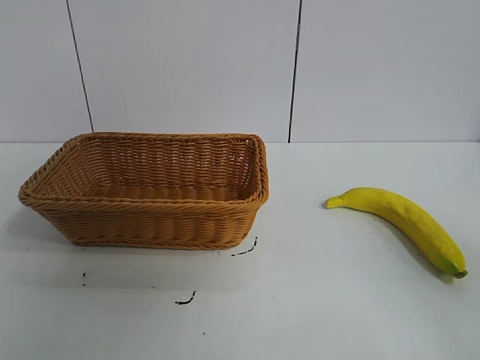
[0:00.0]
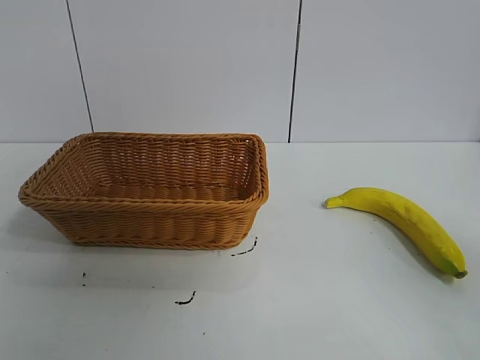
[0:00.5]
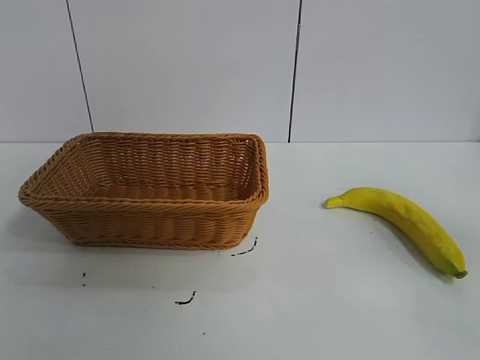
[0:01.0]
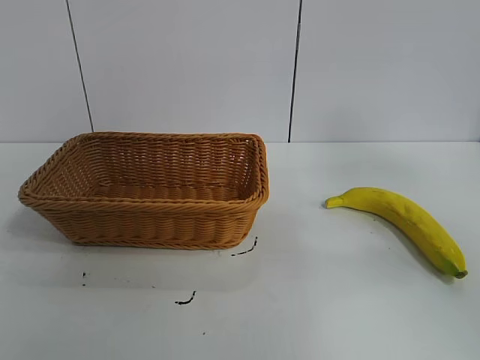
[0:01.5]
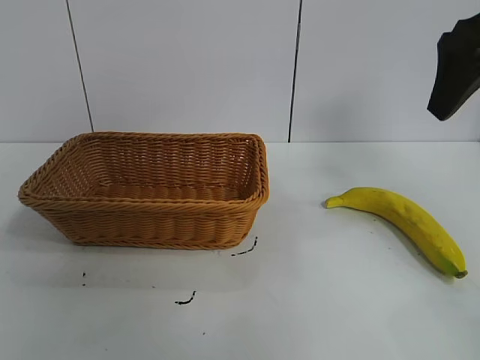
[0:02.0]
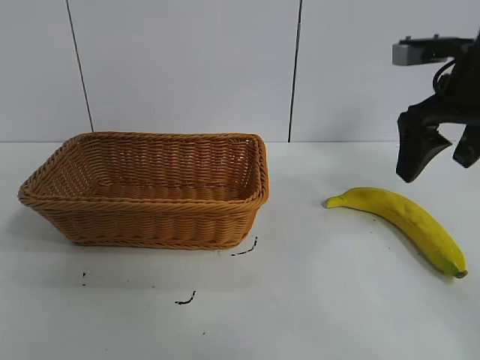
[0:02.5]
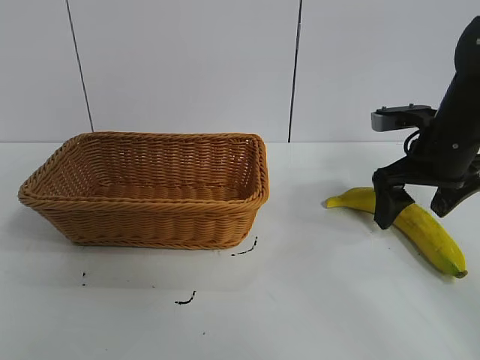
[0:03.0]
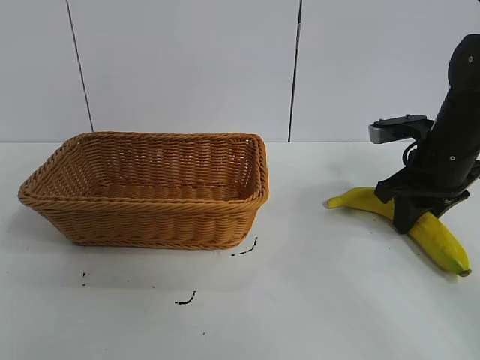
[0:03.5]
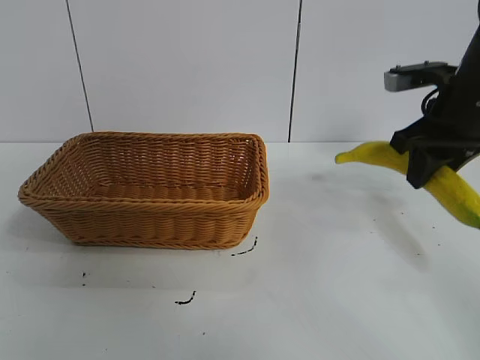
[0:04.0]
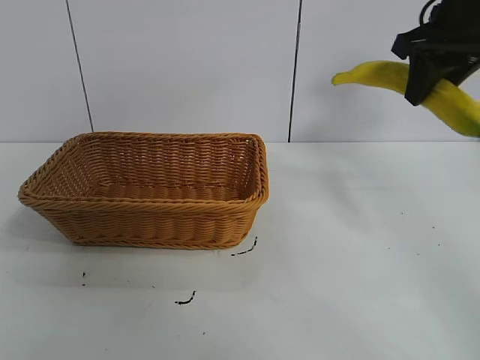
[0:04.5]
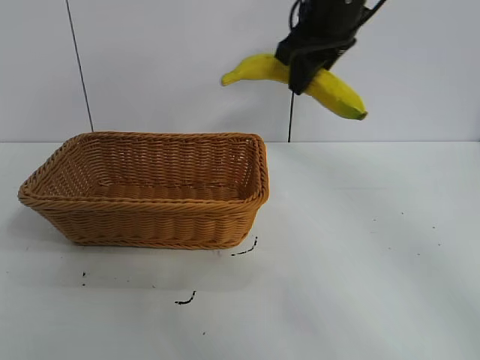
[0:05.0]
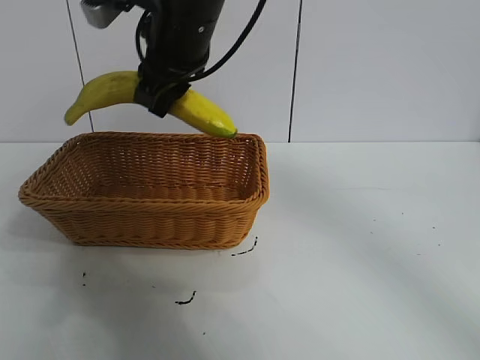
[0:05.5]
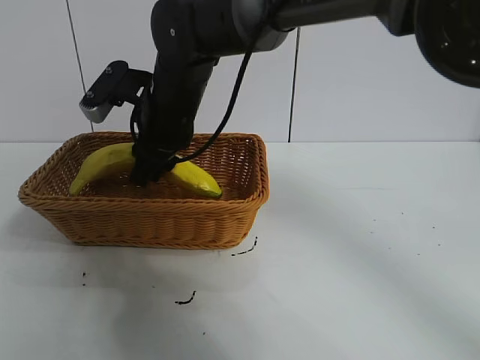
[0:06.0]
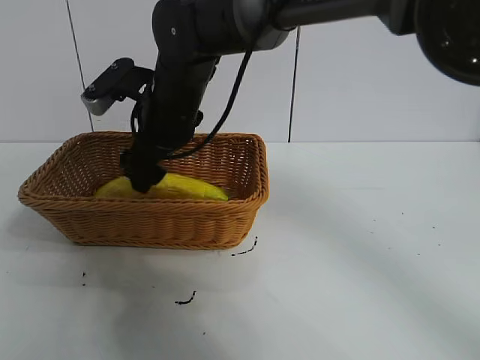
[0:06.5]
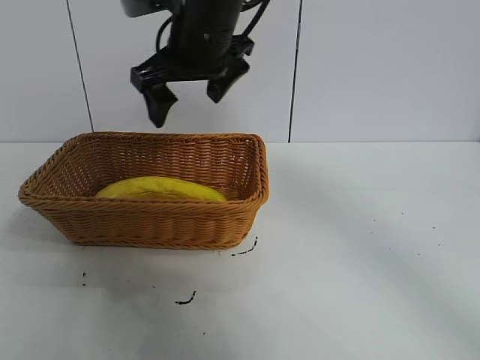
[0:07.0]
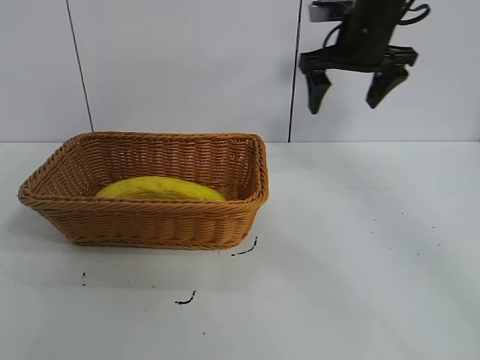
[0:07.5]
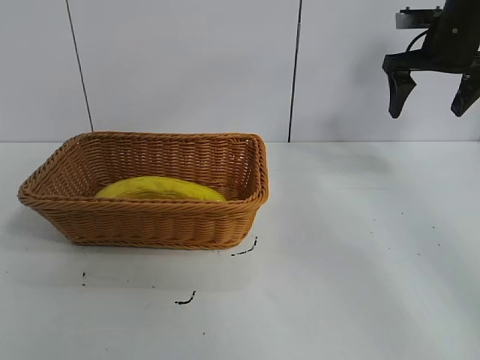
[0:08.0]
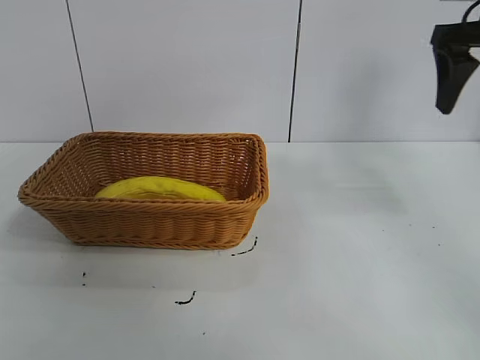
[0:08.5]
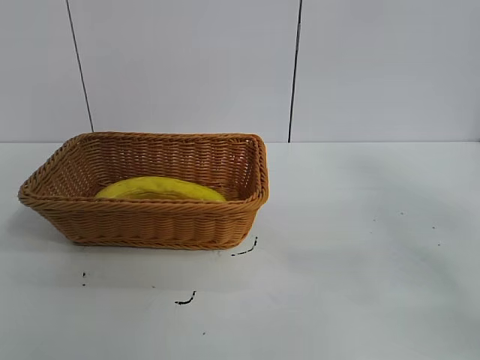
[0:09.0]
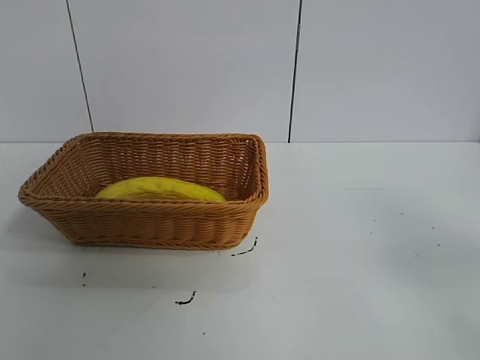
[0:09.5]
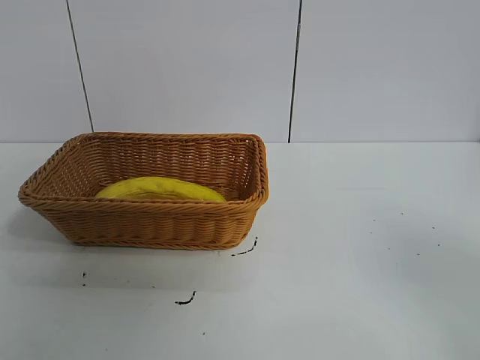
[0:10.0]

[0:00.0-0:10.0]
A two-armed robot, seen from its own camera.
Task of the whole recording: pick up the banana and put it into the basket.
Step, 0:01.0 to 0:03.5: Grasp the banana with right gripper.
Step, 0:04.0 to 0:06.5: Place the banana in the basket with right gripper.
